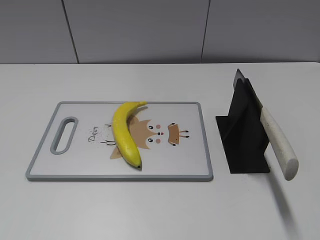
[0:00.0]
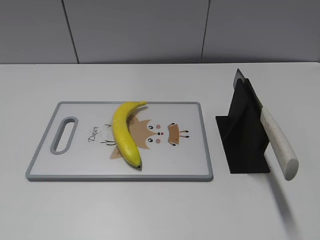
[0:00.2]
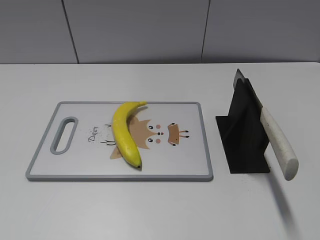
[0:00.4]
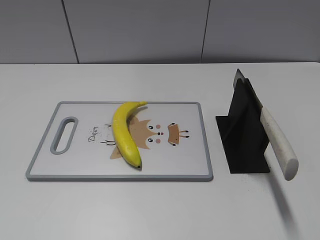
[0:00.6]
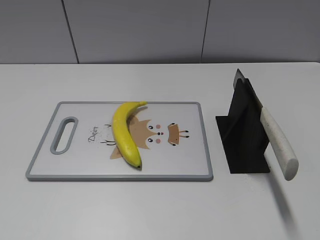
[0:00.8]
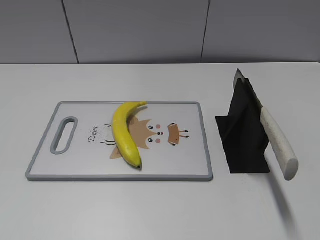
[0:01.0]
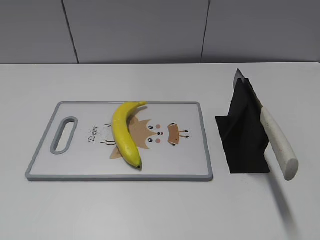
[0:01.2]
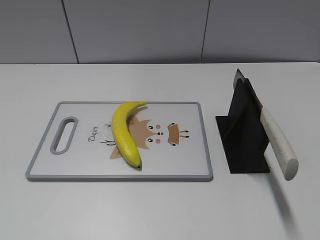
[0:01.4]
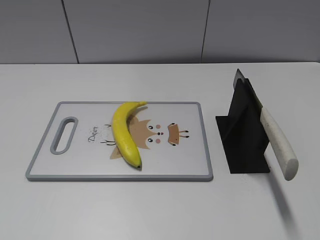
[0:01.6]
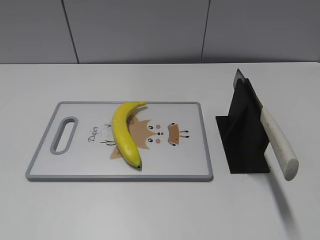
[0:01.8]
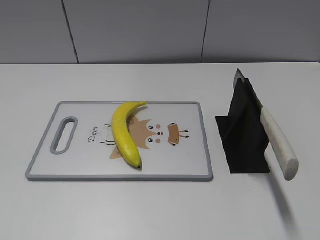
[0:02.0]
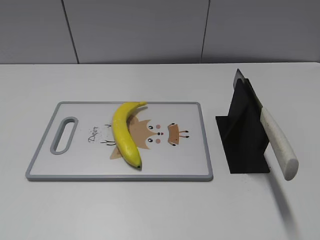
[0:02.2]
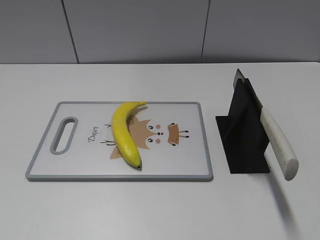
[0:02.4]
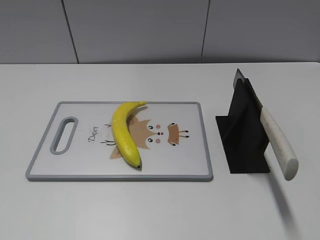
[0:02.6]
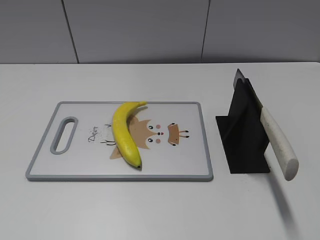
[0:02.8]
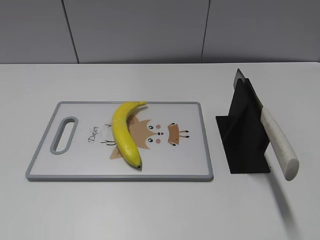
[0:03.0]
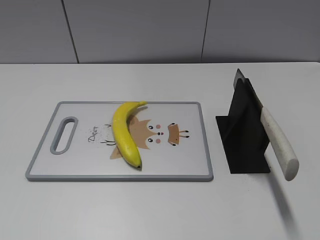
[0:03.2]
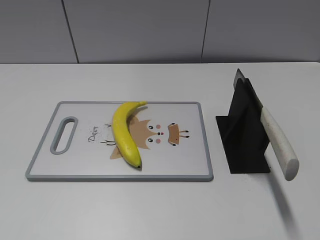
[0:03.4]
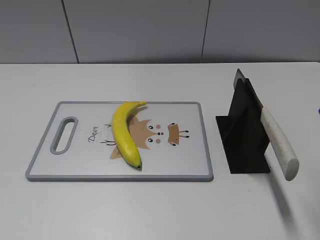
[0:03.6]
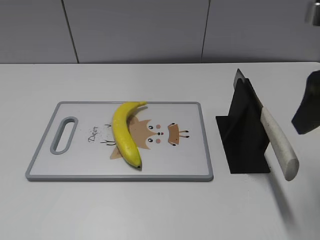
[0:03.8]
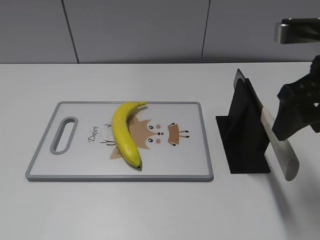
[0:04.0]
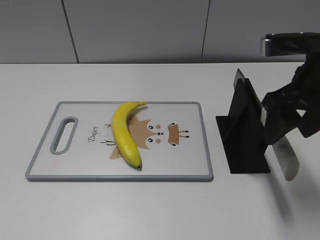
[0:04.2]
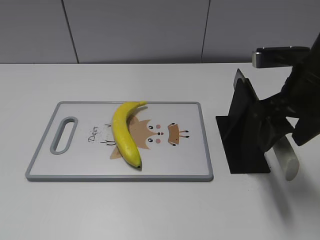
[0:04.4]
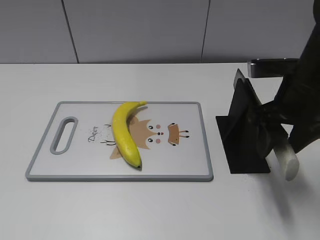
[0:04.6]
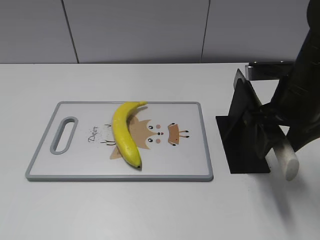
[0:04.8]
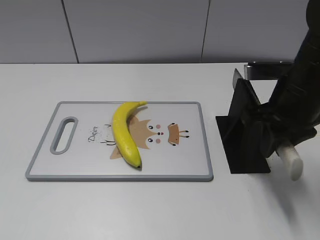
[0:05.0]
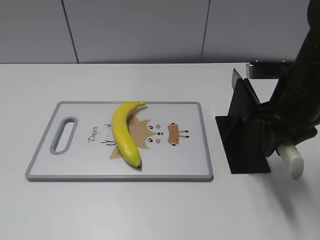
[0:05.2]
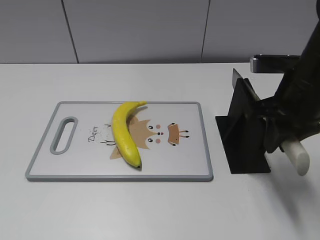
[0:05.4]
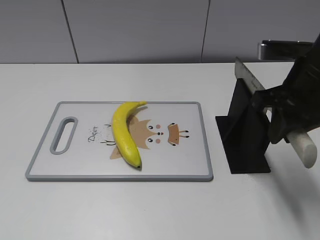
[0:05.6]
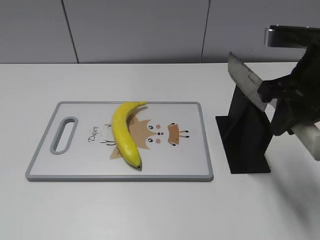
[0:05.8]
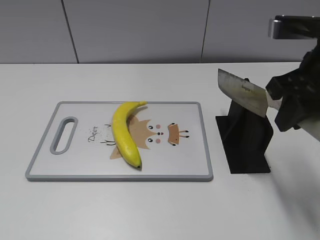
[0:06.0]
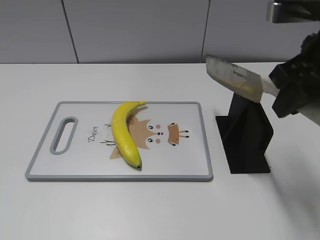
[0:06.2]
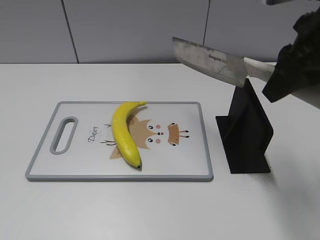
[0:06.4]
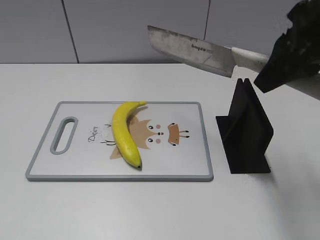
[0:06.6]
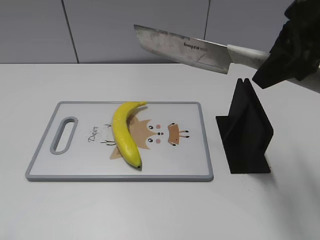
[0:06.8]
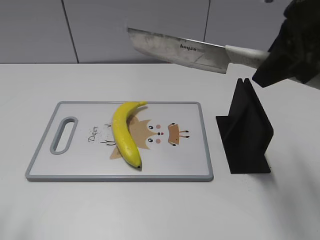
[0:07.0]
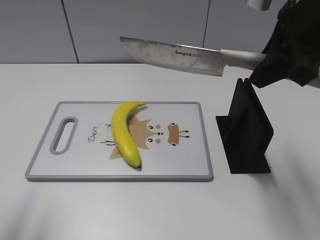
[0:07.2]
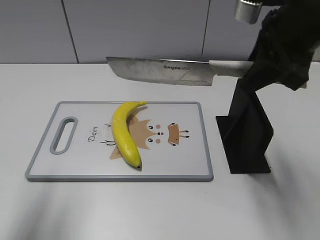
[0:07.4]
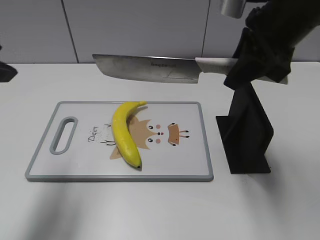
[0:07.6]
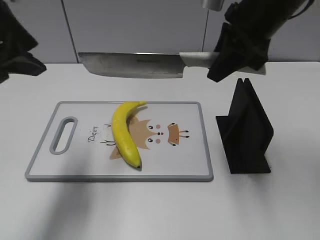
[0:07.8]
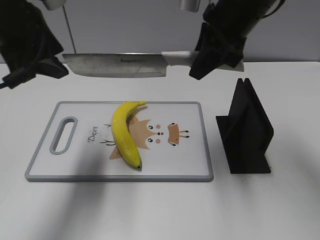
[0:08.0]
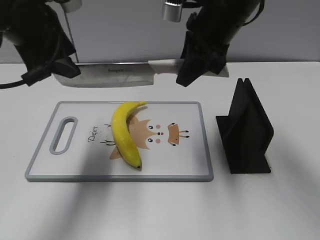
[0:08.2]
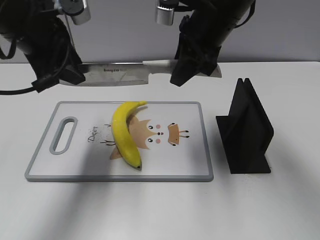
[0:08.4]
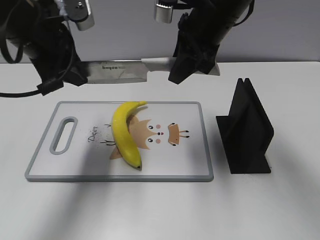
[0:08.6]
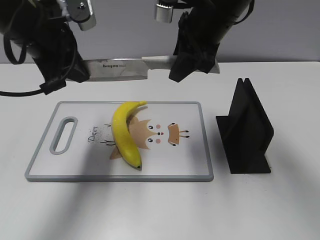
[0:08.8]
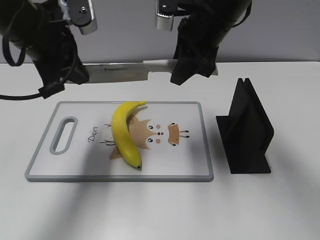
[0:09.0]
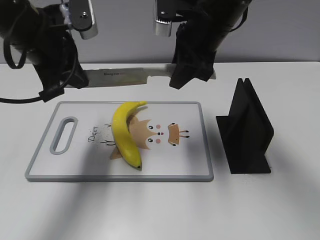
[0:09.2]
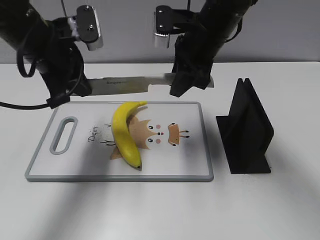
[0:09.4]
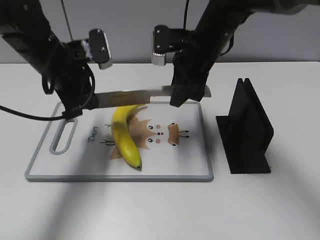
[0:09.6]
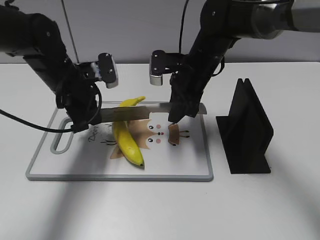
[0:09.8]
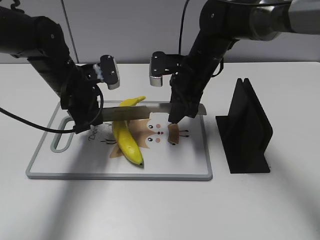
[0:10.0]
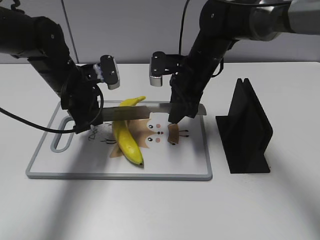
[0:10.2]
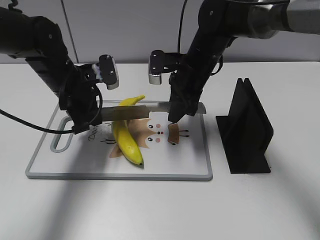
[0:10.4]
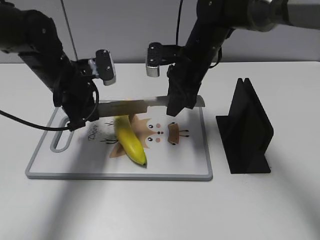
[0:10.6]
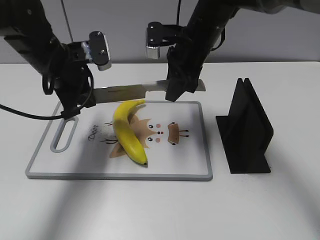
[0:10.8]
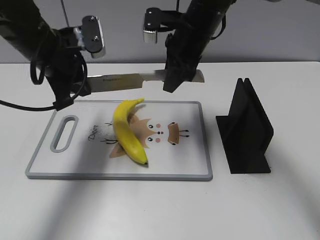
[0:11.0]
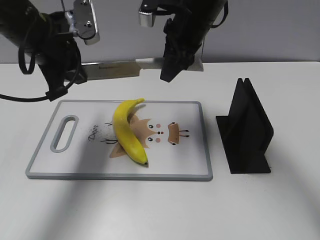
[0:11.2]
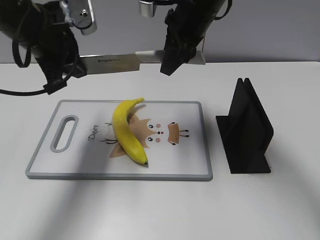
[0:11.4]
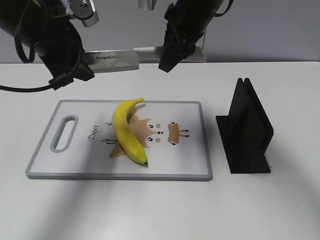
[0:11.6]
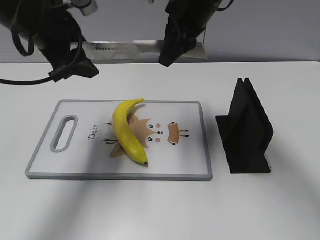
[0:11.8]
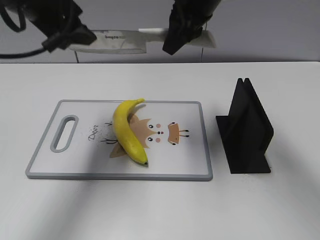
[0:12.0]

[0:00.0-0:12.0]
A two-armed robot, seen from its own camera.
Task of the whole recording: cut plastic banana.
Step, 0:00.0 to 0:06.2: Grab the knife handle with your right hand.
Step, 0:06.4 to 0:11.0: Lift the knife with your right hand.
0:03.0 to 0:04.4: The right gripper goes roughly 20 cm forward, downward and to the left.
0:04.4 to 0:06.0: The right gripper travels upward by roughly 5 cm, and closes.
0:06.0 to 0:07.6: The left gripper heads forward, covering some 25 cm. Meanwhile the right gripper shifts roughly 5 cm forward.
0:07.6 to 0:09.0: The right gripper heads to the left and forward, covering roughly 10 cm; the left gripper travels forward, to the right and downward by roughly 15 cm, and closes up.
0:09.0 to 0:10.4: Both grippers move downward, some 10 cm.
0:10.4 to 0:12.0: The two grippers go some 15 cm upward. The left gripper opens.

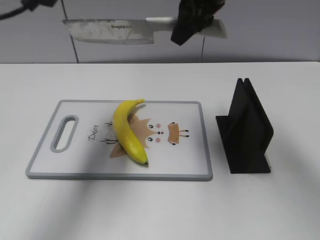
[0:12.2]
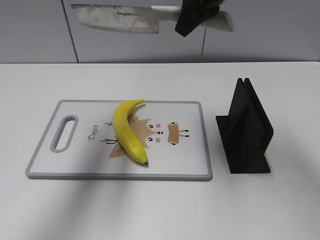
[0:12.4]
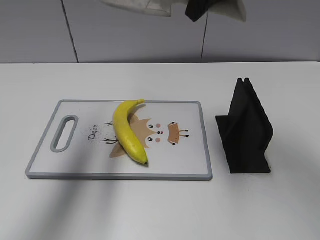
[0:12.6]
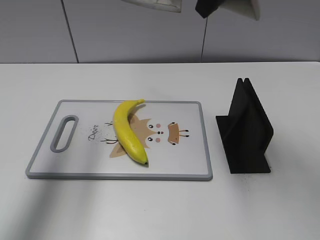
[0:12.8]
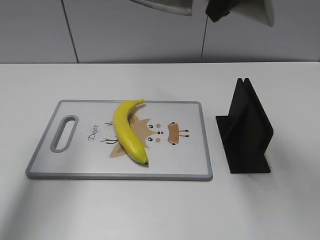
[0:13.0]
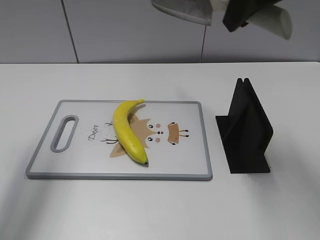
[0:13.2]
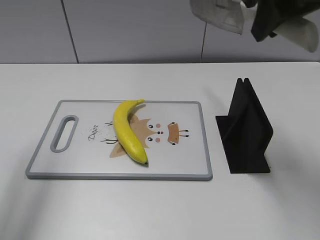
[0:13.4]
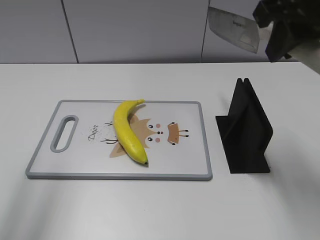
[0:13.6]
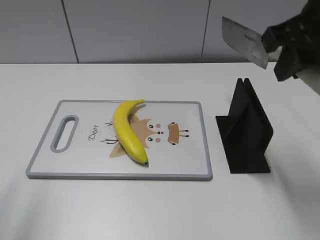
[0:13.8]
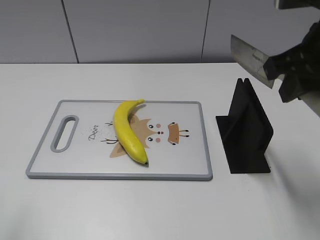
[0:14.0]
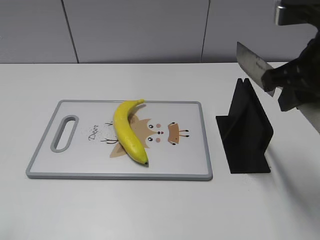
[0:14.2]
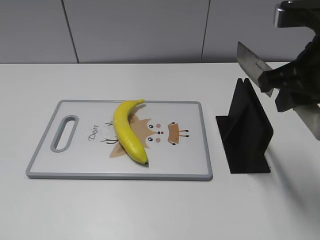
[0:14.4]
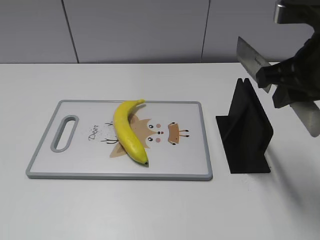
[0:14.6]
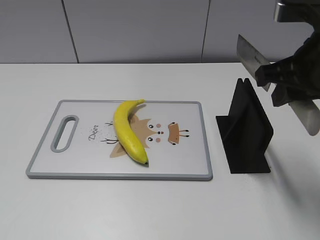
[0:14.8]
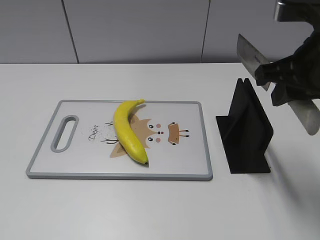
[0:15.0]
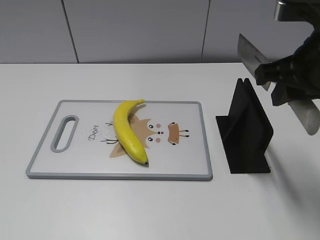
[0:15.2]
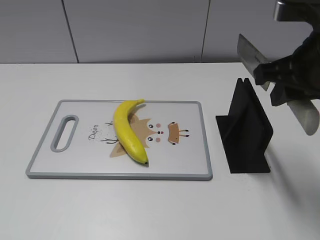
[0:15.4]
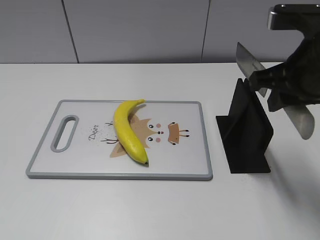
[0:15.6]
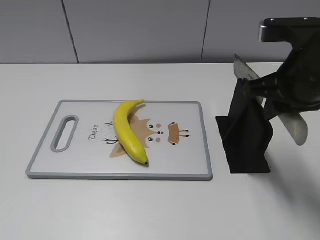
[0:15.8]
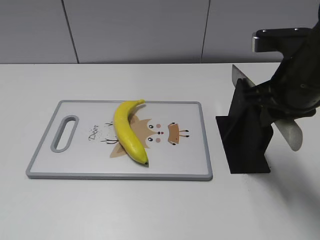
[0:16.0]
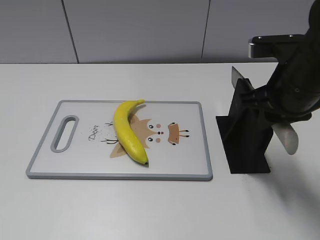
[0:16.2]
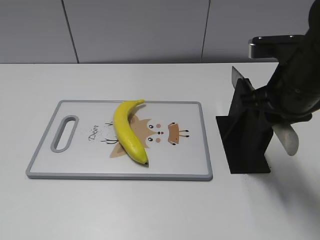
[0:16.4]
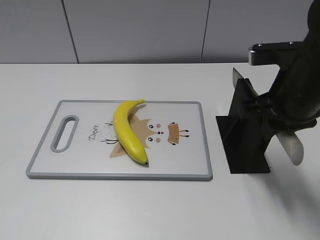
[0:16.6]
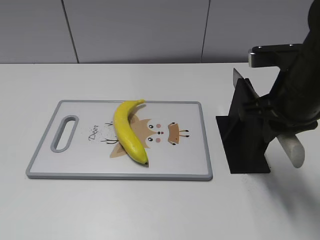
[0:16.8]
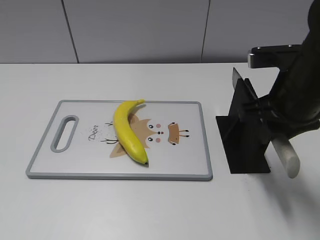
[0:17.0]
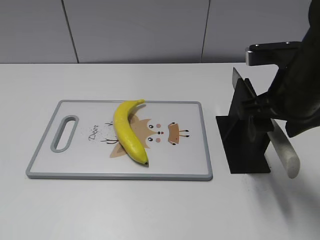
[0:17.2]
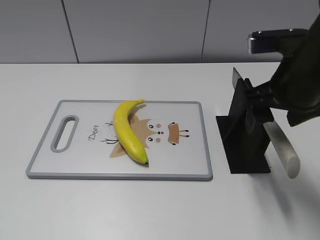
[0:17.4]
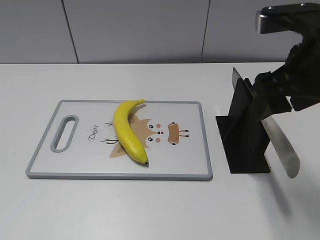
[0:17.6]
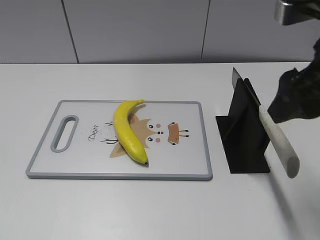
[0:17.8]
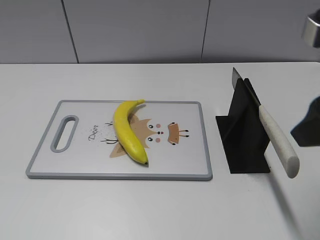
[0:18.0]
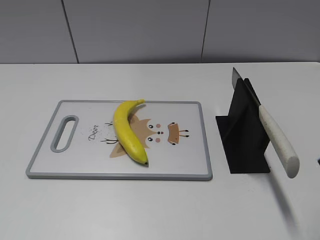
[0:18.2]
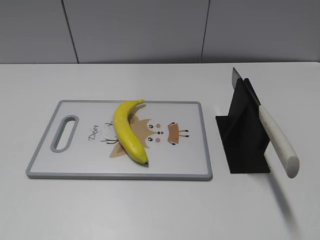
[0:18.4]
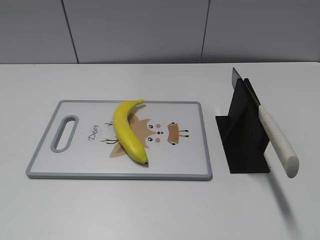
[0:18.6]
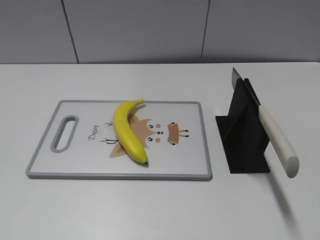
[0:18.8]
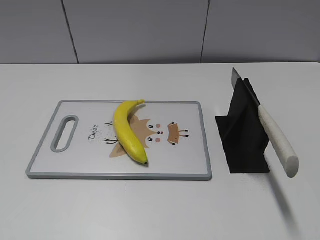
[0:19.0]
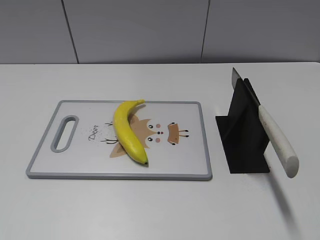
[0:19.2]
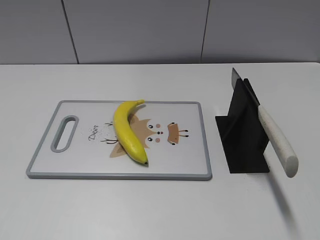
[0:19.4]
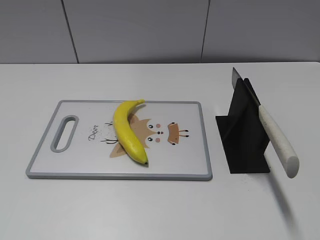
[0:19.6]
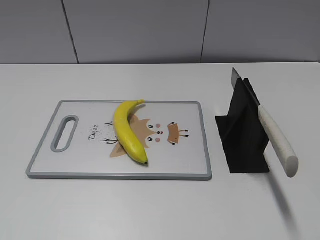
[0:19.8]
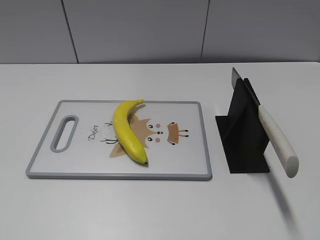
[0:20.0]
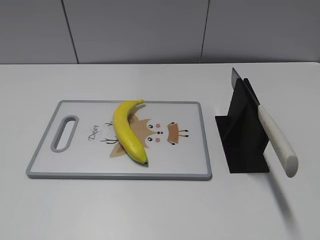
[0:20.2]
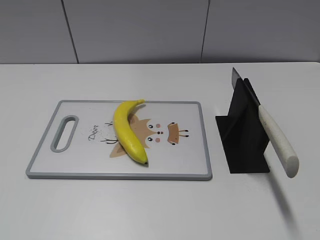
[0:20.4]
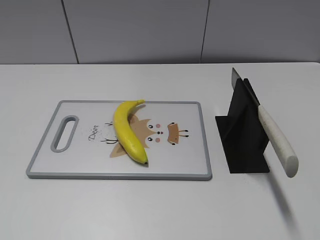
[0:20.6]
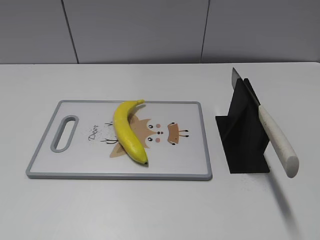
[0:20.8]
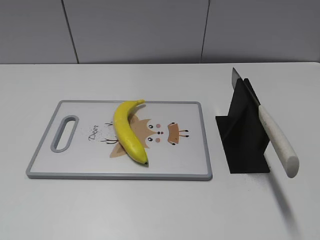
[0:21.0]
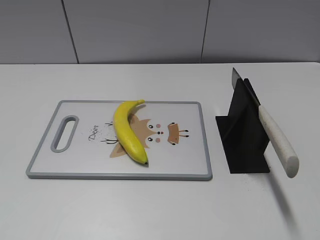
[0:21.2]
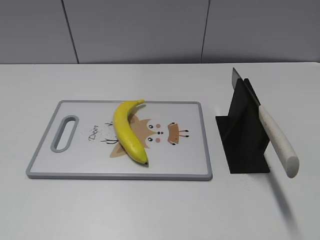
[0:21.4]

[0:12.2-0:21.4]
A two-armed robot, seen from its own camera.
Task of the whole recording: cut plastic banana.
Step, 0:12.8 to 0:14.6: Lift the knife with your right hand.
Step, 0:15.0 to 0:21.2: Place the knife on the storage rack with your right hand.
0:12.2 to 0:13.8: The left gripper goes approximately 20 cm backward and to the left. Meanwhile the right gripper heads backward and to the right, covering about 15 cm.
0:13.8 to 0:15.2: The left gripper heads backward and downward, covering about 20 cm.
0:15.2 to 0:16.8: The right gripper goes roughly 5 cm downward.
0:16.8 to 0:18.4: The right gripper is displaced backward and to the right by about 20 cm, and opens.
